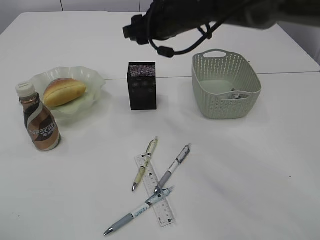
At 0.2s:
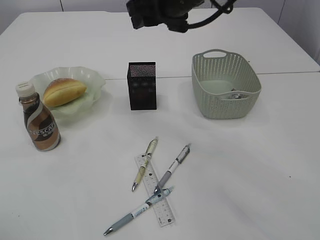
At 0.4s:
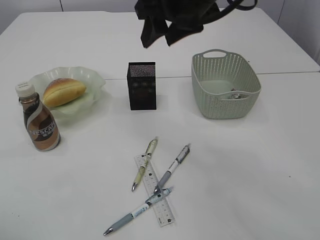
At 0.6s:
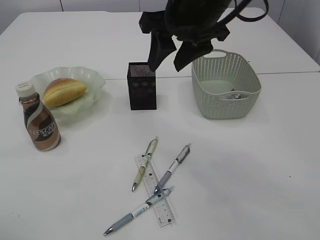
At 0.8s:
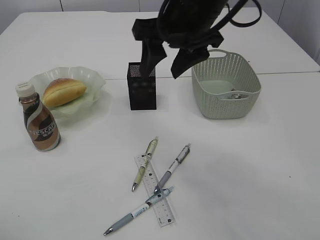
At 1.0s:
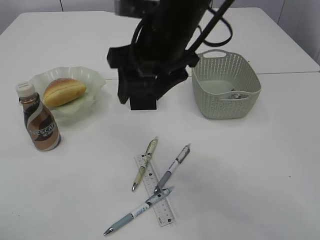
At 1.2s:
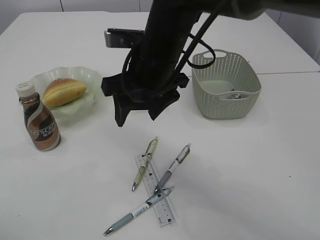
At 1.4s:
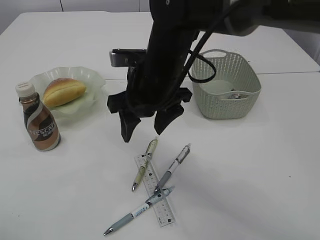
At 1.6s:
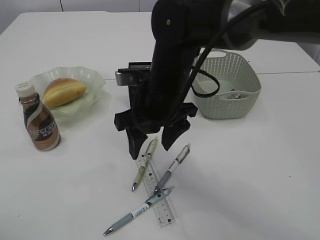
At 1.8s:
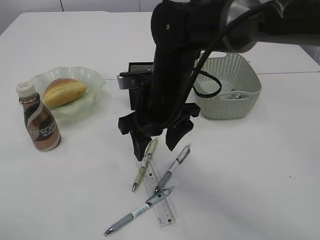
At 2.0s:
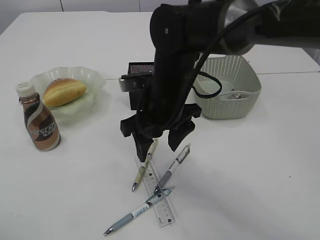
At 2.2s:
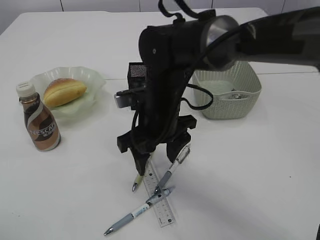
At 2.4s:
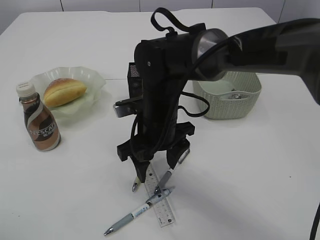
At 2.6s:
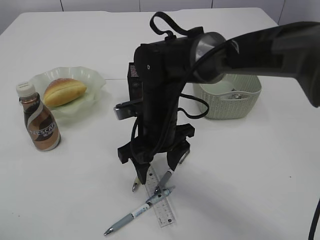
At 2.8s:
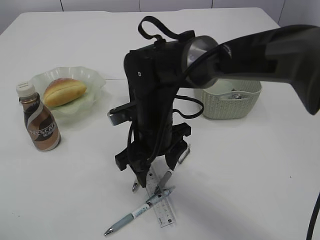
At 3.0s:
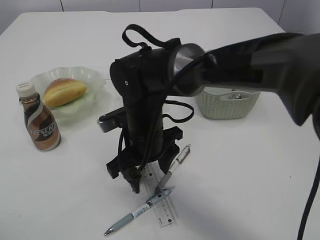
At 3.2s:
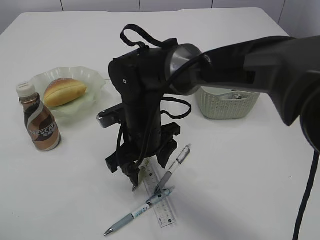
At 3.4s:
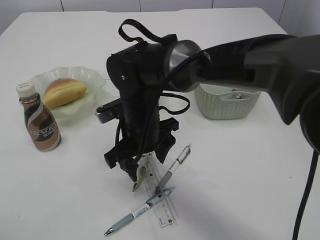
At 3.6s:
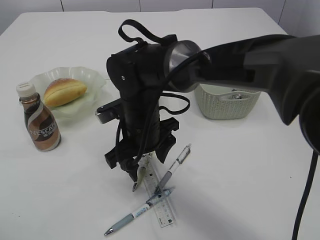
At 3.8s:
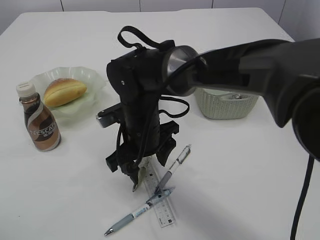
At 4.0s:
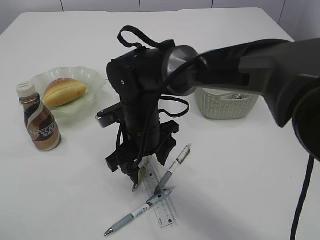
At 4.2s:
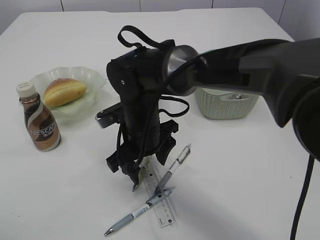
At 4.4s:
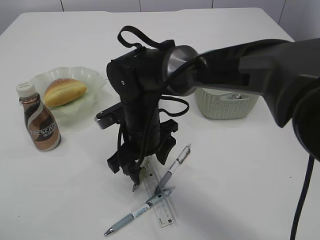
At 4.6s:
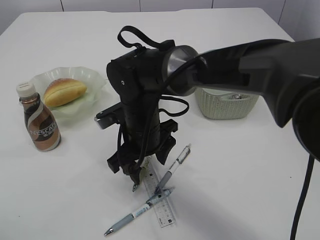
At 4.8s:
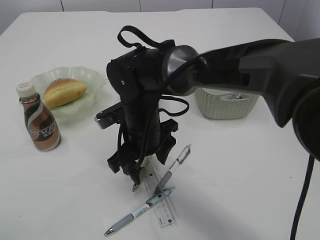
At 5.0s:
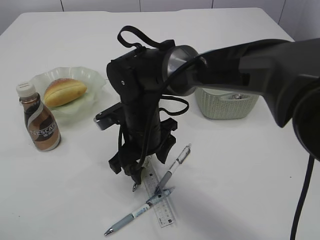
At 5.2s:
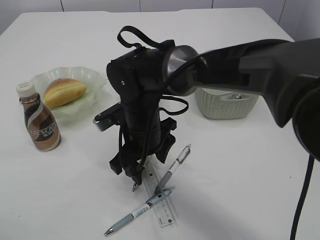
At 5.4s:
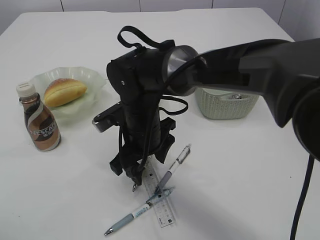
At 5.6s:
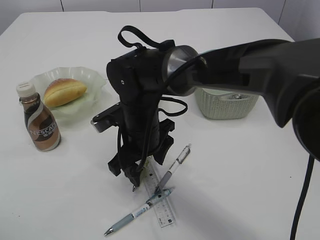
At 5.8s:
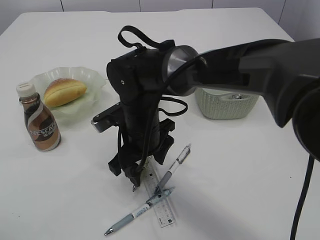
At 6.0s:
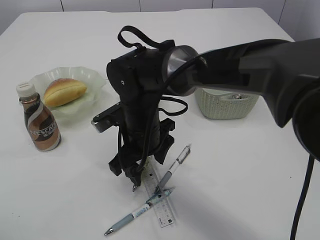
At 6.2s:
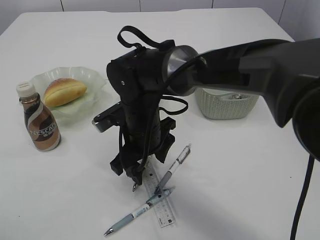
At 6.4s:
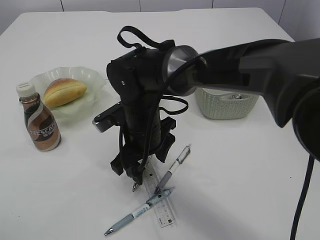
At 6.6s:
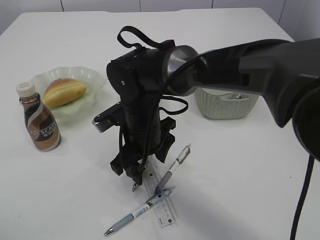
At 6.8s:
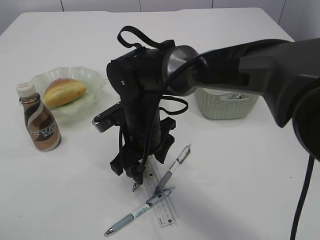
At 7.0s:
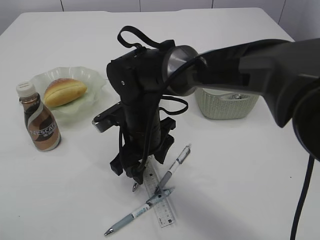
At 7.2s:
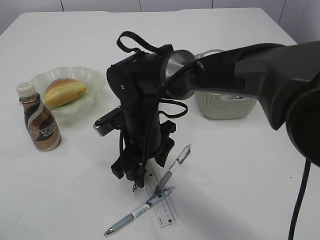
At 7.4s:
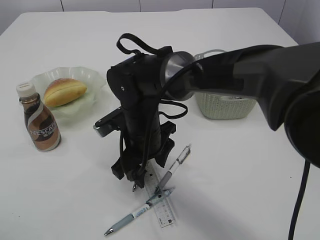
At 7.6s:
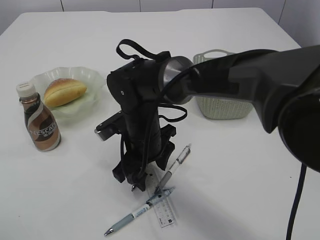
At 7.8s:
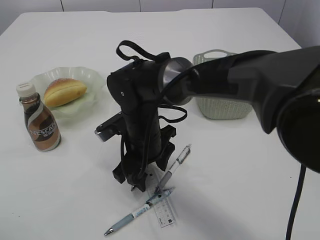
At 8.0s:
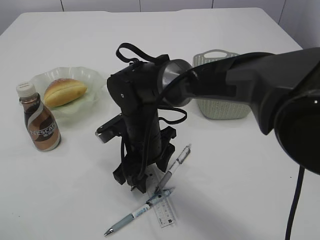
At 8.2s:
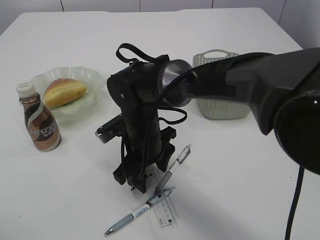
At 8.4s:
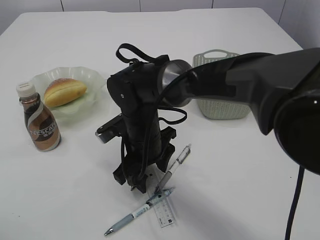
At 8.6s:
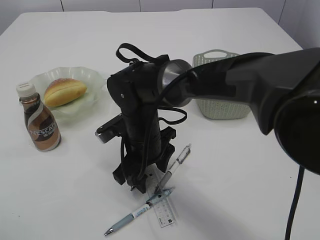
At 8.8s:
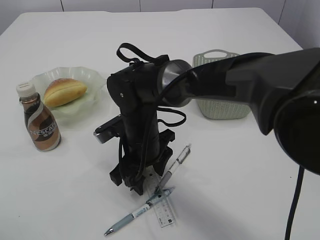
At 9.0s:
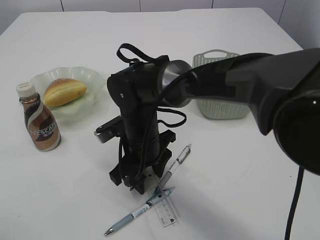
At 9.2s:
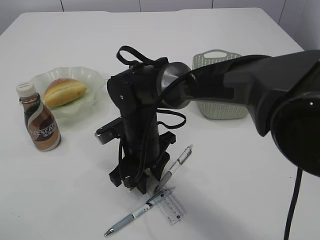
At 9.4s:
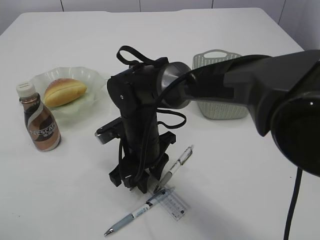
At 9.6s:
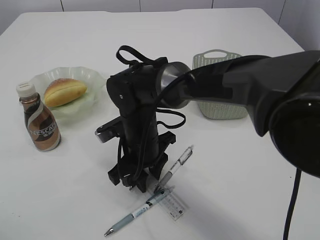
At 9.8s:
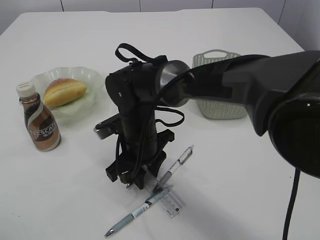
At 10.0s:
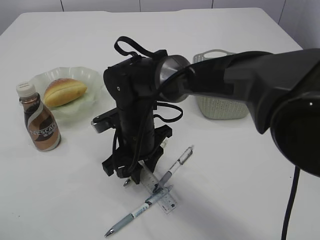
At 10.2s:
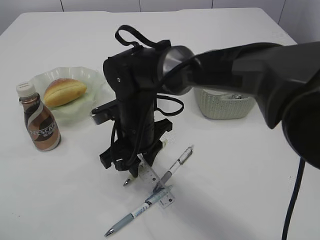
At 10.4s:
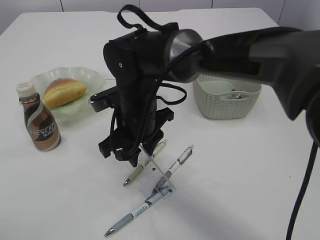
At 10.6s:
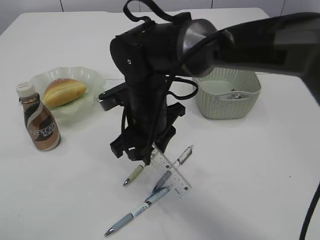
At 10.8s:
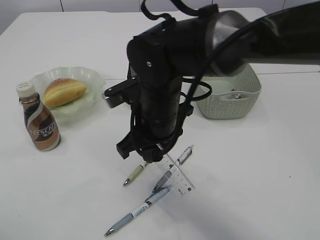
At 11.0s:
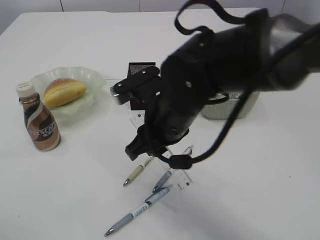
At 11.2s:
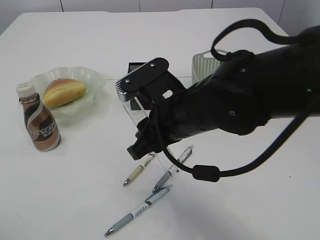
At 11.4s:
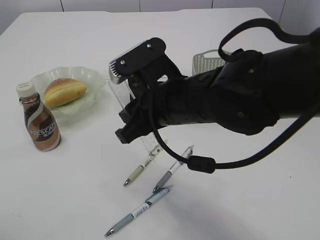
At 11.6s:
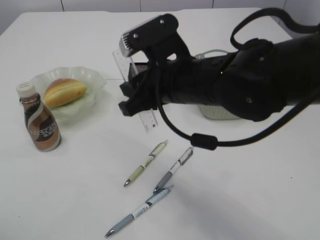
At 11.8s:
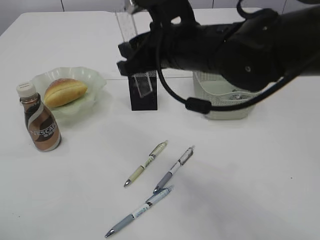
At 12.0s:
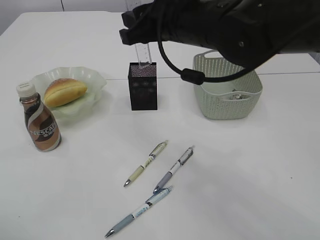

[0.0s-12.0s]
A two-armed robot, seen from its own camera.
0.0s to 1.6s: The right gripper travels backward and downward by approximately 15 cm.
1.6s to 3.0s: The right gripper shifts about 5 cm downward.
3.0s to 7.6s: There are only small adjustments of the grippers.
7.6s to 9.0s: Both grippers stay about where they are.
10.4s to 12.0s: The right gripper goes some 15 cm upward and to the right.

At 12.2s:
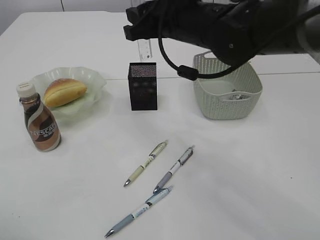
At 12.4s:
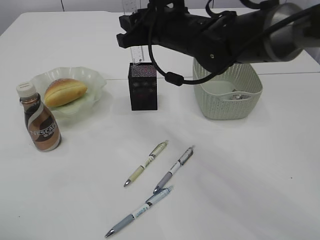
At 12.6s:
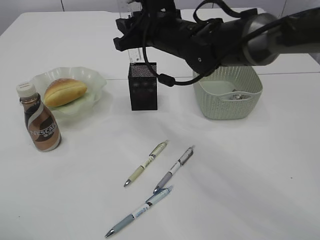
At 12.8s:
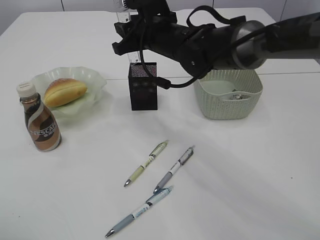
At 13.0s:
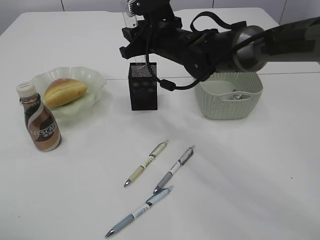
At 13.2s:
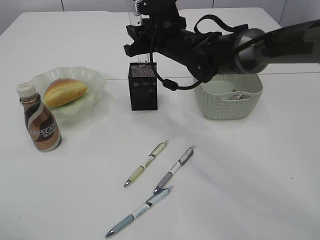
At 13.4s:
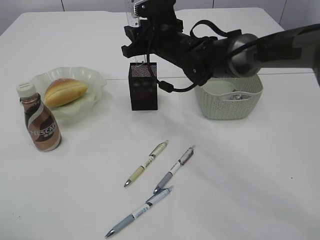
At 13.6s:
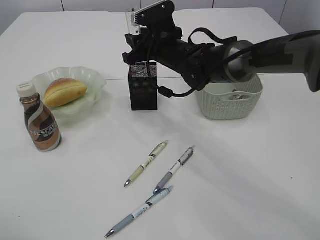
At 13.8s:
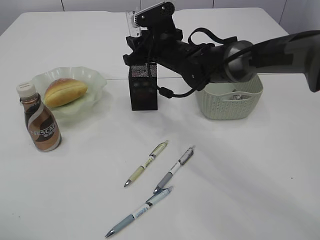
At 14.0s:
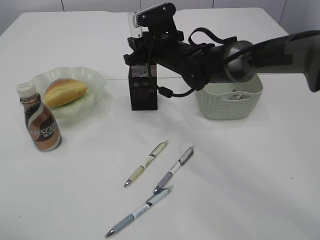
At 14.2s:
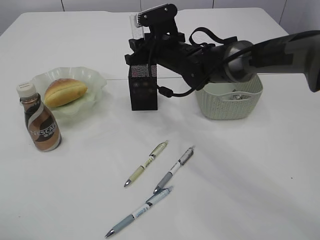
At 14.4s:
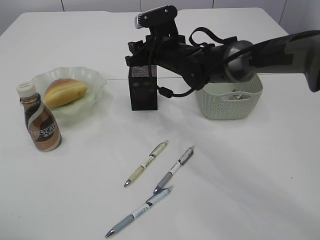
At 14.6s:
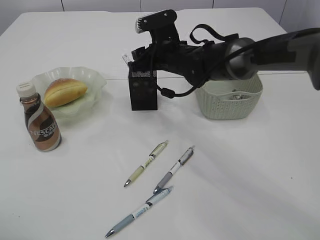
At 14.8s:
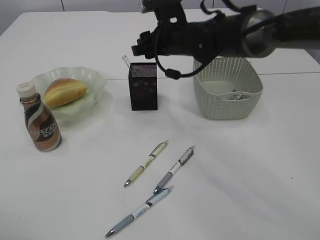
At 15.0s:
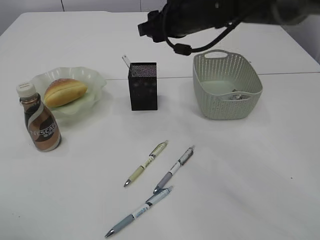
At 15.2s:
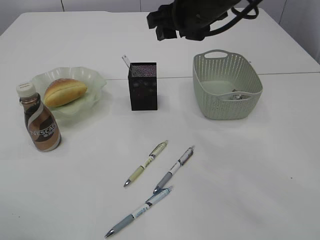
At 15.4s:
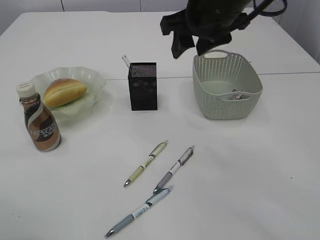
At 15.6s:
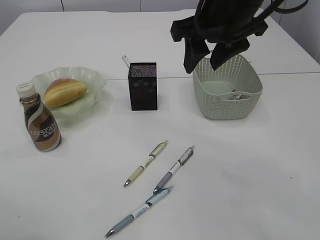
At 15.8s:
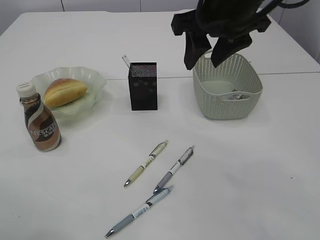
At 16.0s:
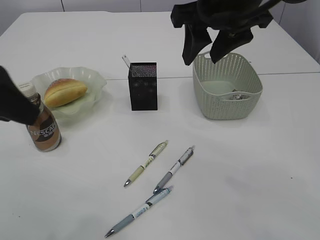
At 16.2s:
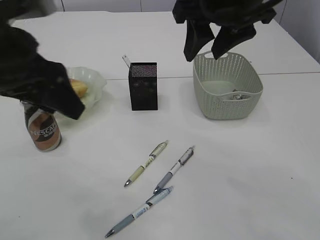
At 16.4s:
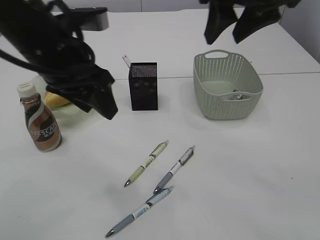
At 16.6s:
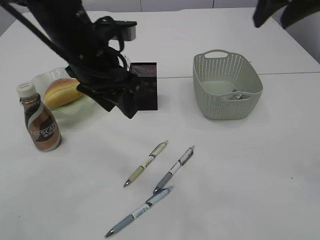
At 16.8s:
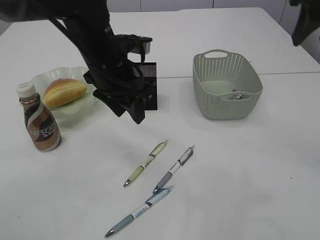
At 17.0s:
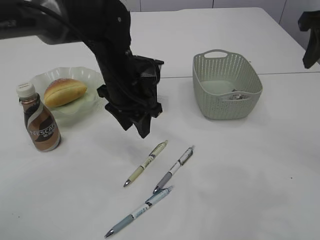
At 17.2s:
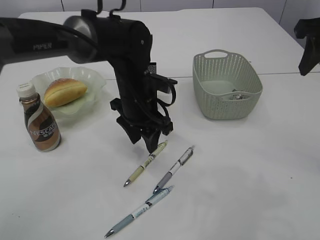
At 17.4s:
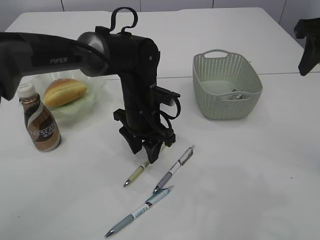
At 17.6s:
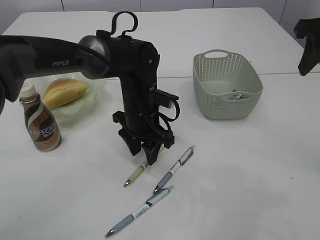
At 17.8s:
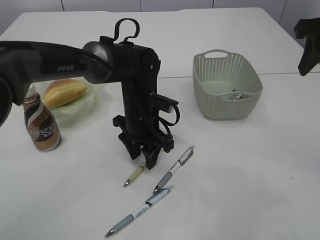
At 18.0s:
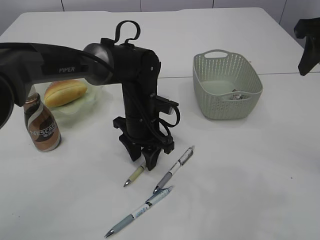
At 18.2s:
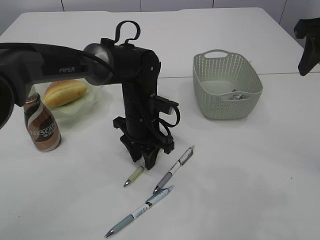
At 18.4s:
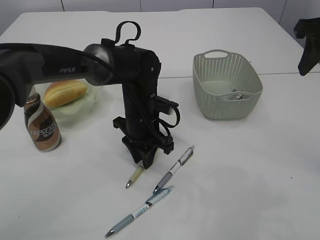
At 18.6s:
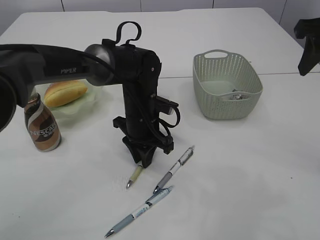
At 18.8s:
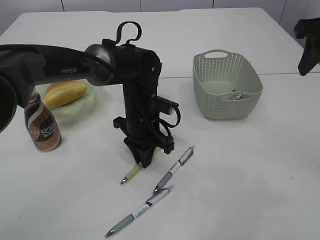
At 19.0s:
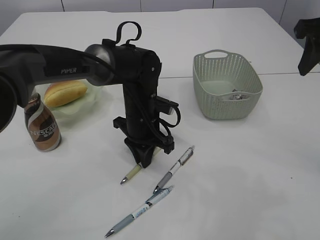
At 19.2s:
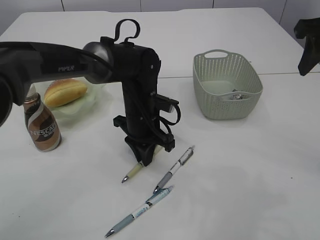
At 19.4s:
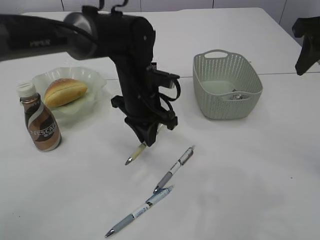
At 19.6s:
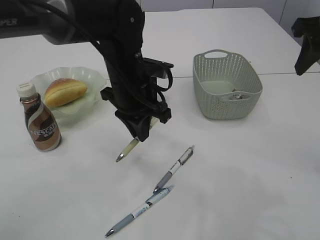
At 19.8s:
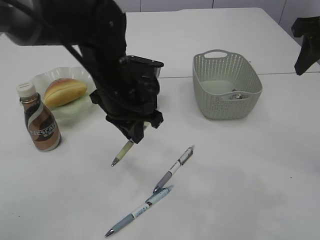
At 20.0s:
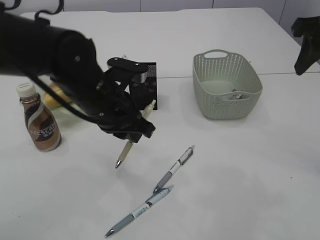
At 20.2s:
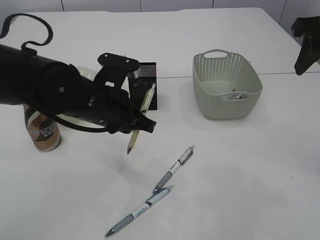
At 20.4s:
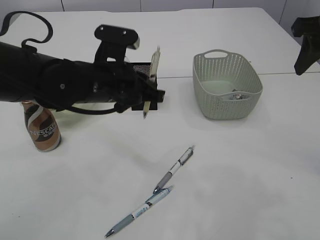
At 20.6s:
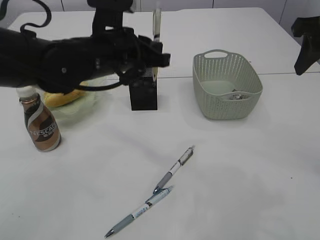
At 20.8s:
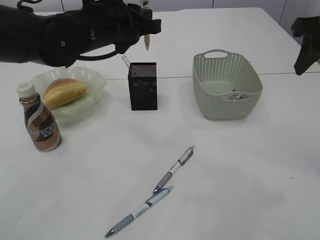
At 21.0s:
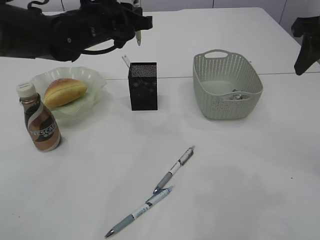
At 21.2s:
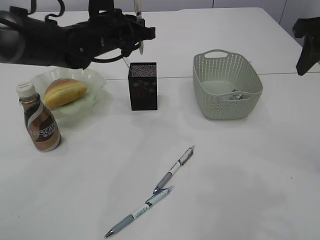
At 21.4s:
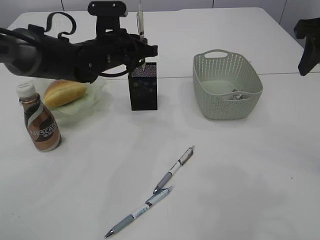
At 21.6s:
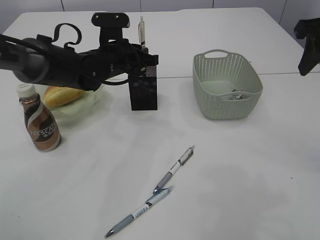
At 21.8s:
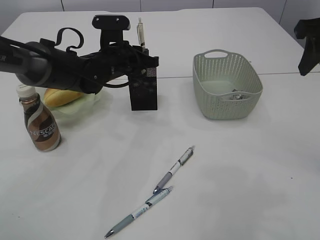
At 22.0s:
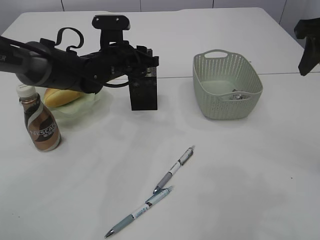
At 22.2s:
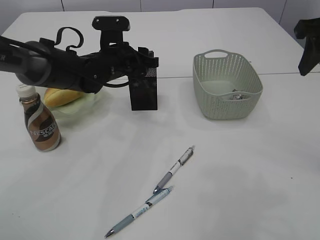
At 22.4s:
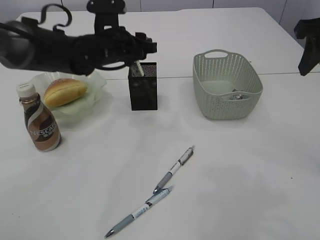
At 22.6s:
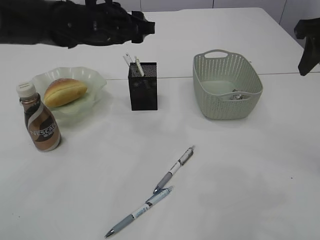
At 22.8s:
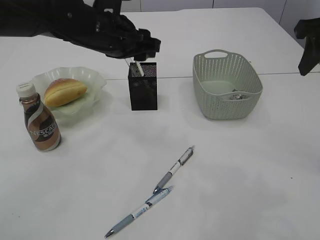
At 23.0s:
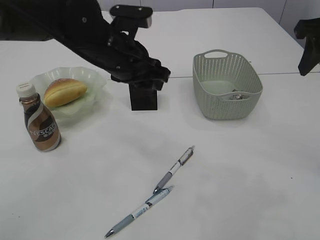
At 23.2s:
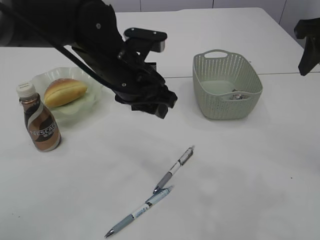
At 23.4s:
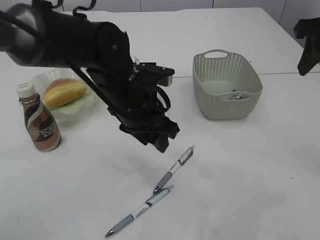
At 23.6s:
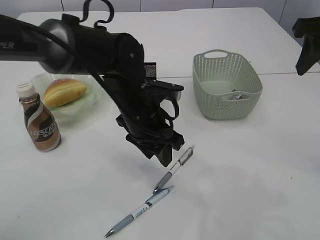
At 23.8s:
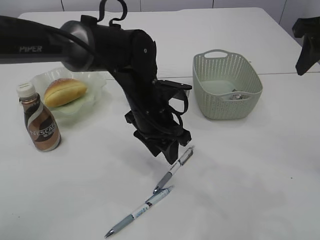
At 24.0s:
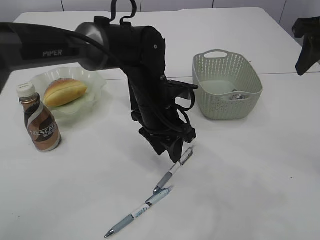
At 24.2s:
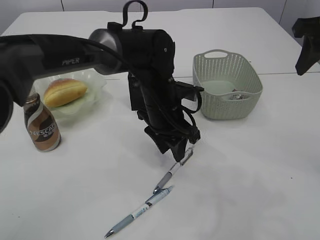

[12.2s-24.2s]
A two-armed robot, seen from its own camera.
Step, 12.2s to 14.8s: Place the ruler into the pen holder.
Step, 15.0s to 19.4s: Pick up the pen with left arm.
Step, 19.6s to 22.4s: Place the pen into the pen holder.
12.2s to 13.8s: The right gripper shifts about 15 cm downward and forward.
13.8s to 15.2s: The right gripper goes approximately 15 cm upward and backward.
15.2s to 16.6s: The right gripper moves to the right, upward and backward, roughly 15 cm. The left gripper travels to the right and forward by roughly 25 cm.
16.6s to 18.2s: The left gripper shifts about 15 cm downward and to the right, while the right gripper goes roughly 10 cm to the right and downward.
18.2s to 19.8s: The left gripper moves upward, some 10 cm, and closes.
19.8s to 21.2s: The left gripper heads forward, covering about 10 cm.
21.2s to 22.6s: The left gripper travels downward and back again, approximately 5 cm each way, and opens its fingers.
22.6s to 24.2s: The left gripper goes roughly 15 cm downward, to the right and backward.
